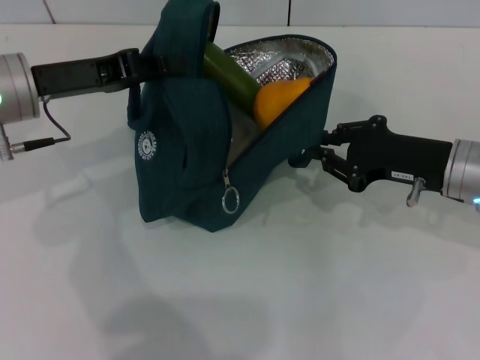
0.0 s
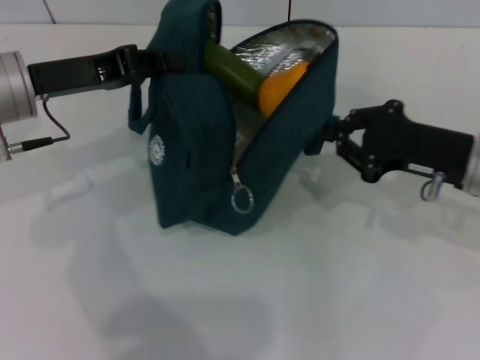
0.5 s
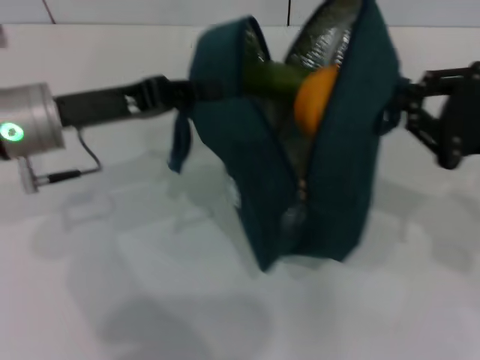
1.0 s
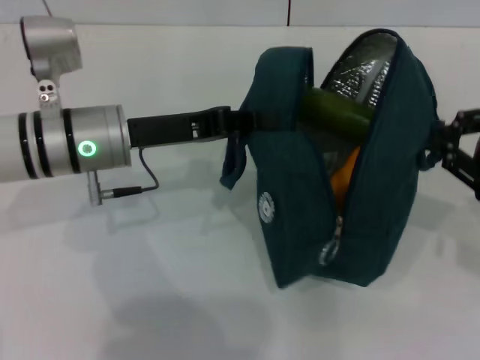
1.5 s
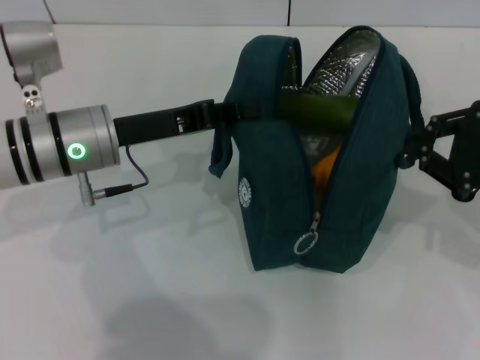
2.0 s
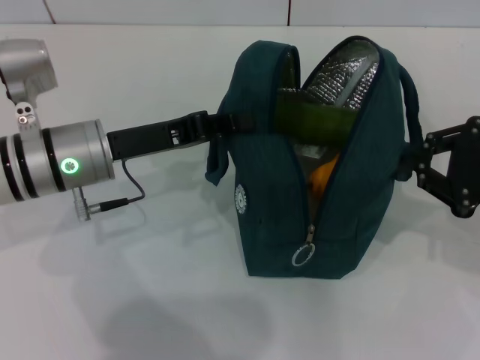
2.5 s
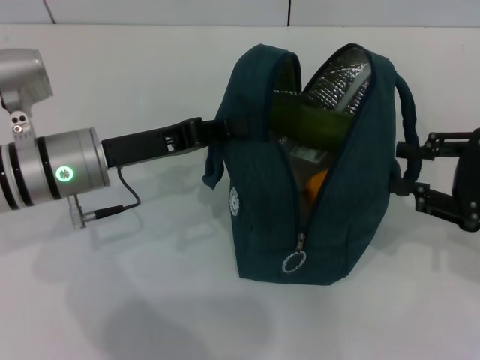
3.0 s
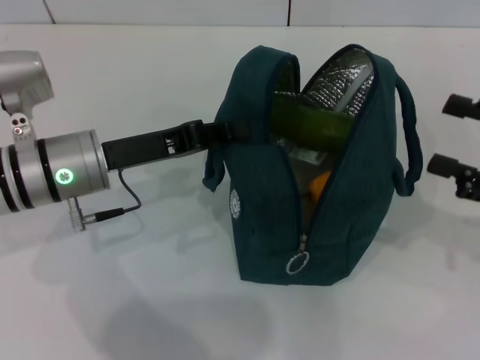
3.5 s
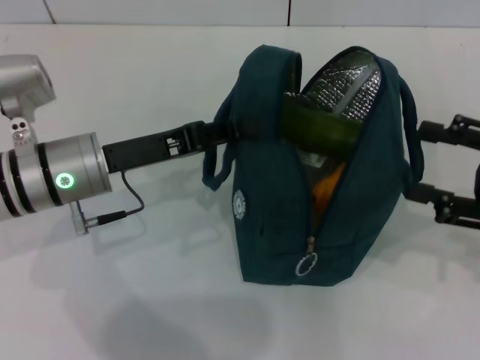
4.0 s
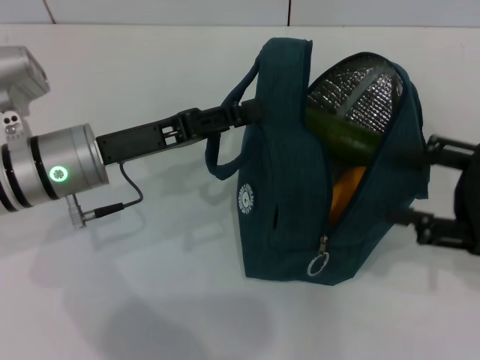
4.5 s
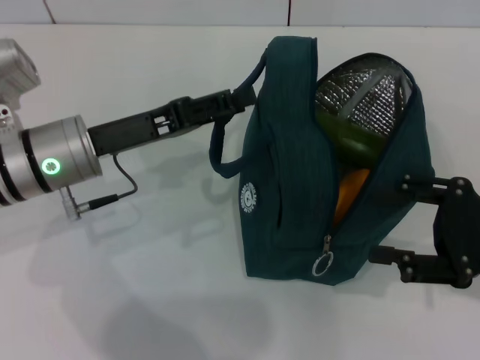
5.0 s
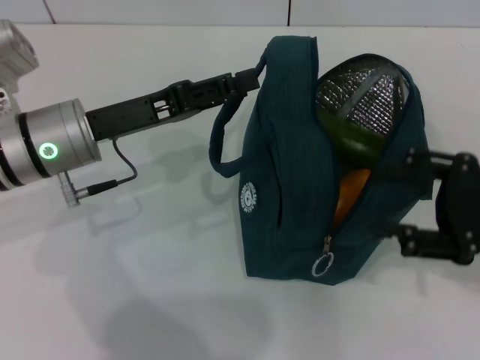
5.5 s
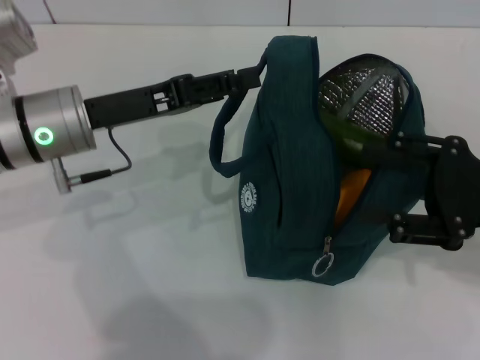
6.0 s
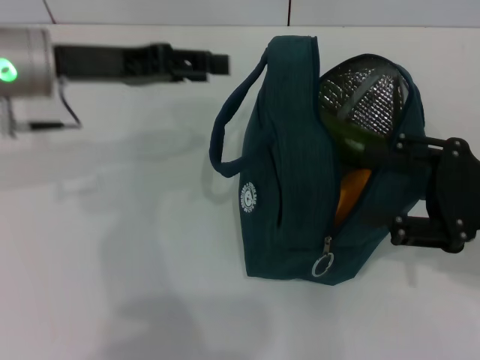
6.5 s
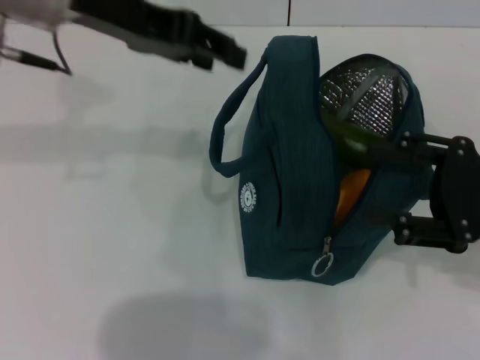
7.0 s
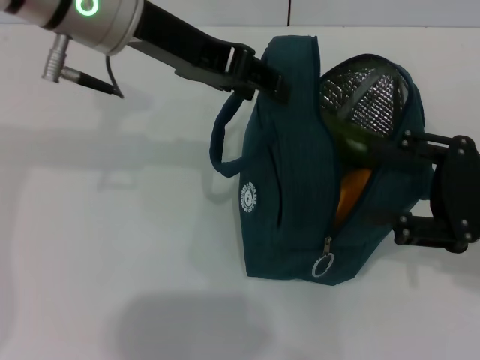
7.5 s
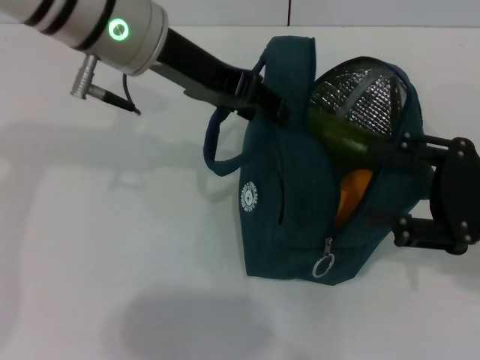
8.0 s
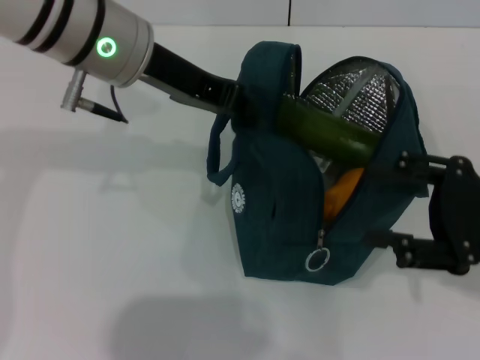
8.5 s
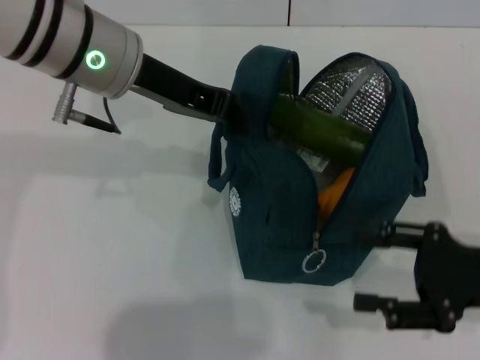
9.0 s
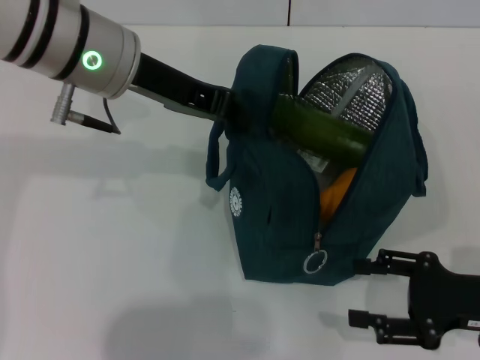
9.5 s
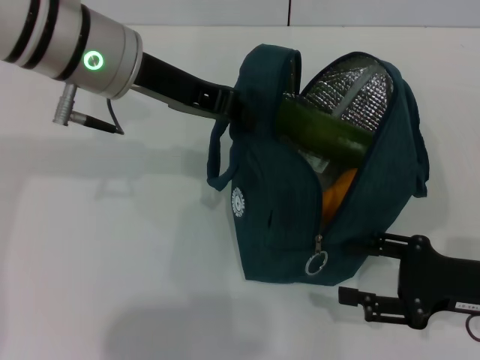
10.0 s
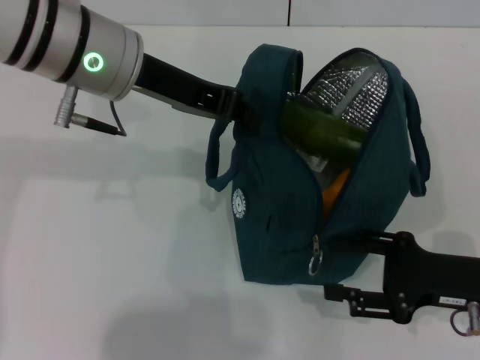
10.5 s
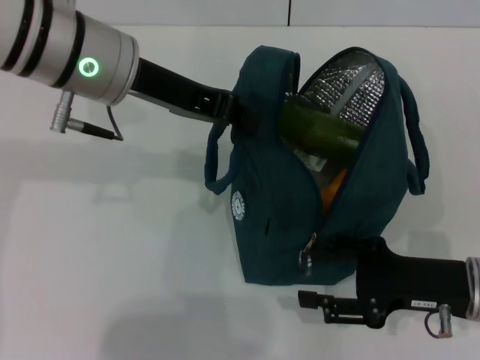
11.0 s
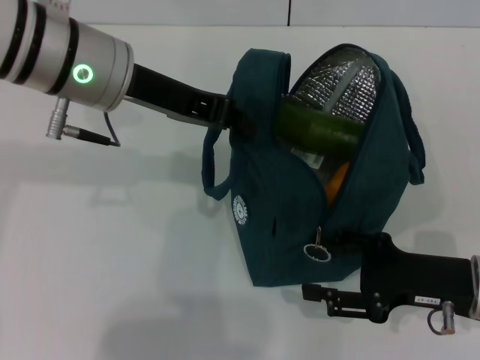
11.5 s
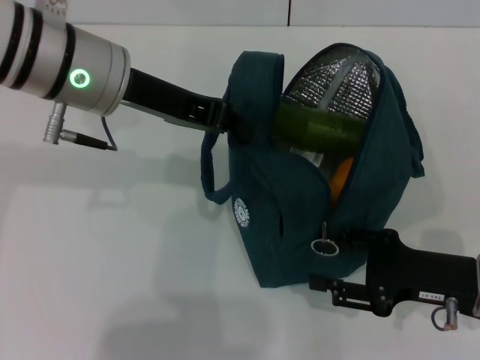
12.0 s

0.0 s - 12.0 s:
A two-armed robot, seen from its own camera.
Step, 0.0 s - 2.5 s: Hold the lunch bag with your right hand.
0.0 s - 2.0 s: The left gripper heads to the right, covering approximately 5 cm. Meanwhile the right gripper shifts about 10 cm to the right and upward.
2.0 s - 4.0 s: The right gripper opens up.
4.0 s - 6.0 s: The left gripper opens.
6.0 s - 8.0 s: The left gripper heads upward and to the right, covering about 15 cm.
8.0 s - 10.0 s: The right gripper is displaced downward by some 10 cm; the left gripper closes up.
10.0 s - 12.0 s: The grippers move only a little.

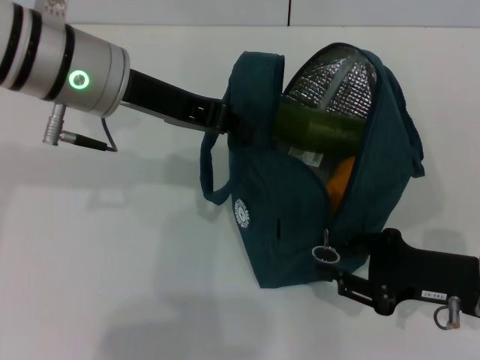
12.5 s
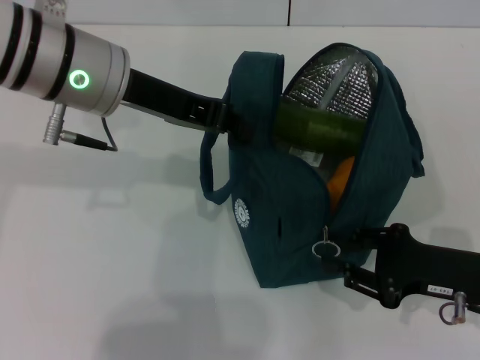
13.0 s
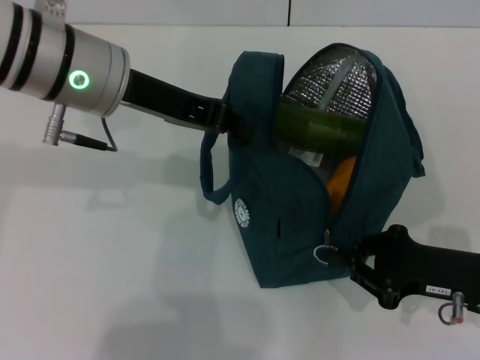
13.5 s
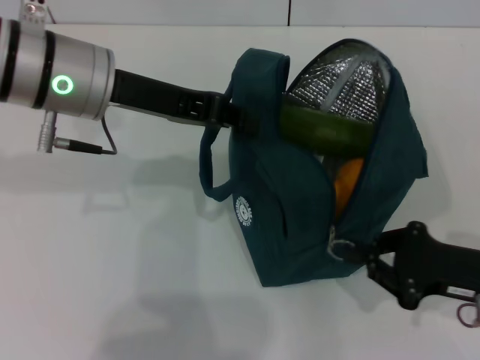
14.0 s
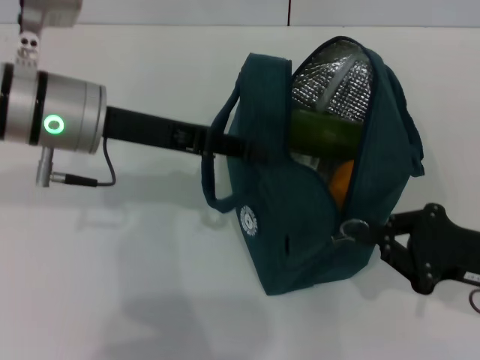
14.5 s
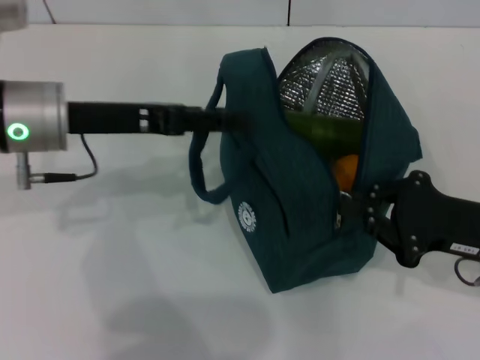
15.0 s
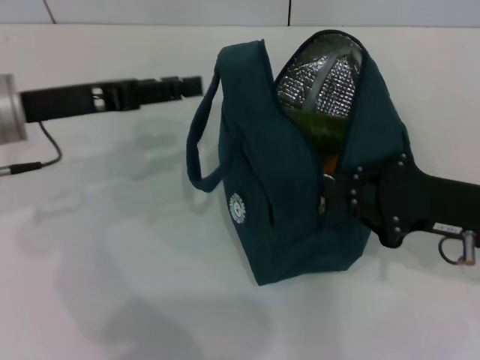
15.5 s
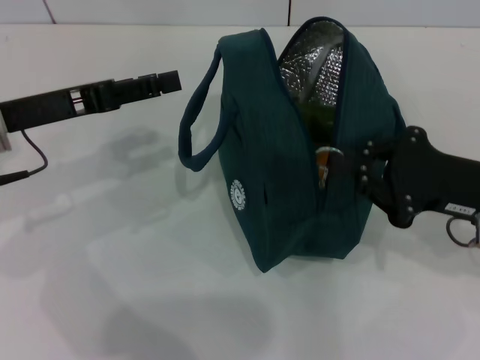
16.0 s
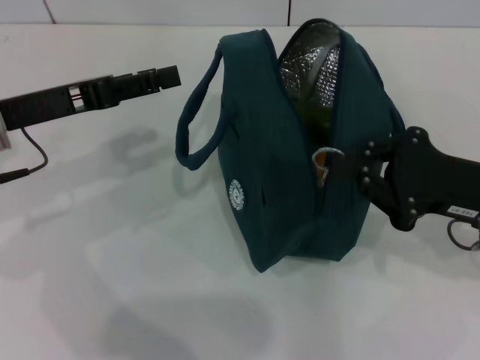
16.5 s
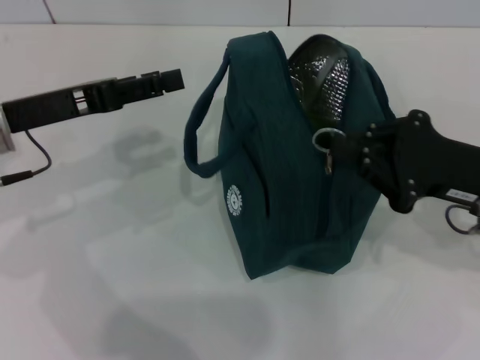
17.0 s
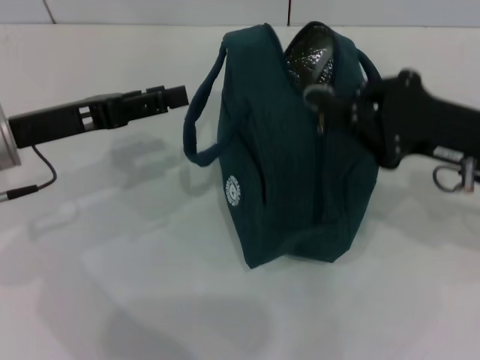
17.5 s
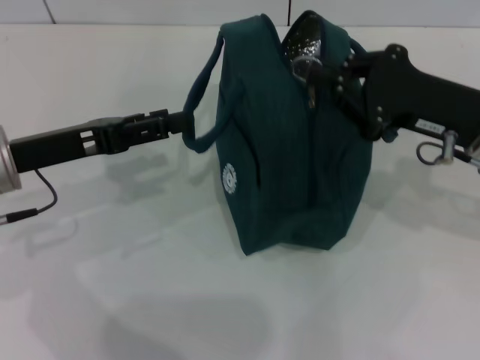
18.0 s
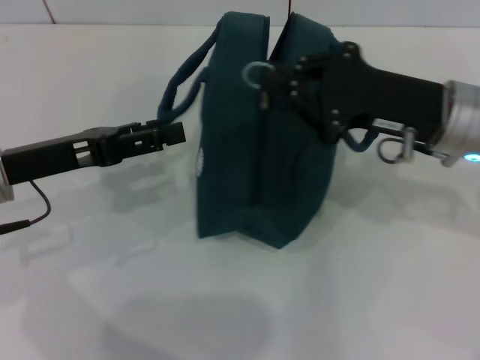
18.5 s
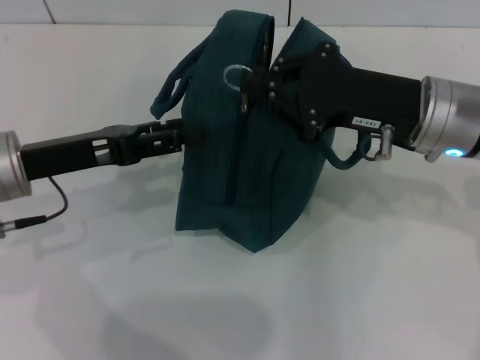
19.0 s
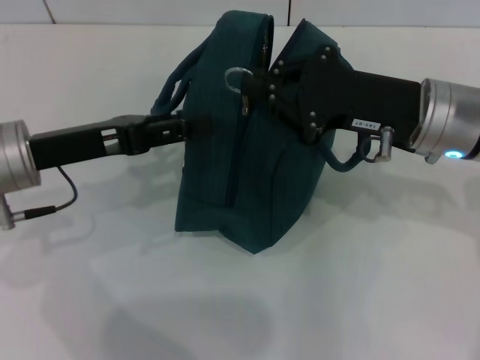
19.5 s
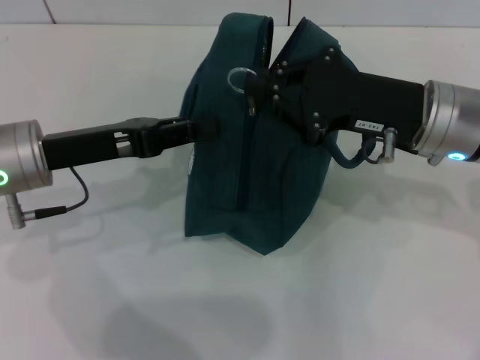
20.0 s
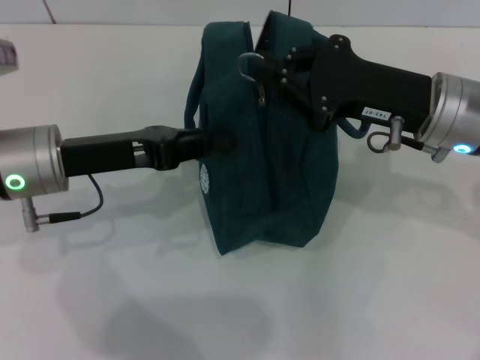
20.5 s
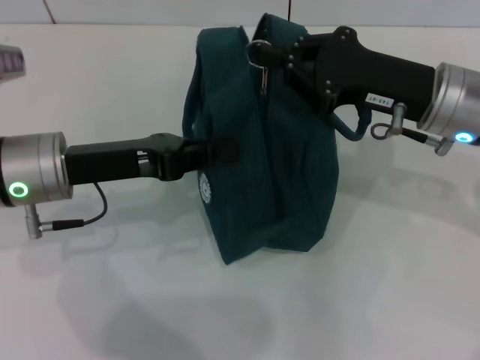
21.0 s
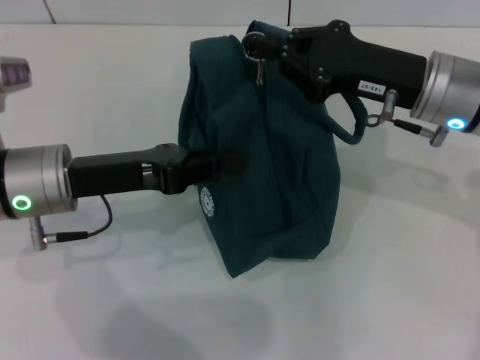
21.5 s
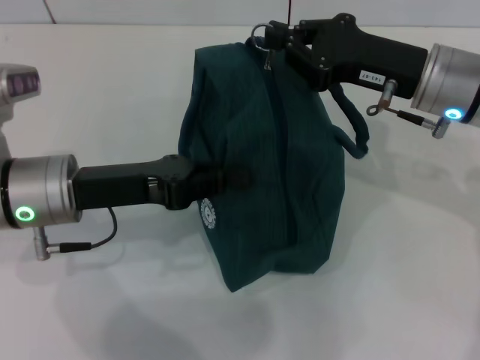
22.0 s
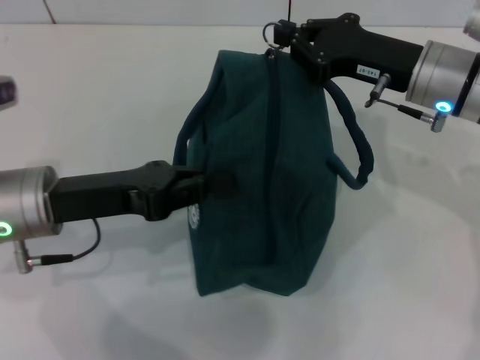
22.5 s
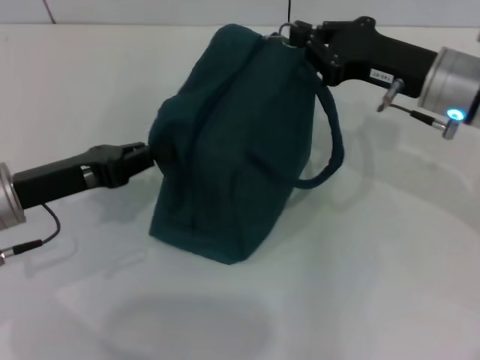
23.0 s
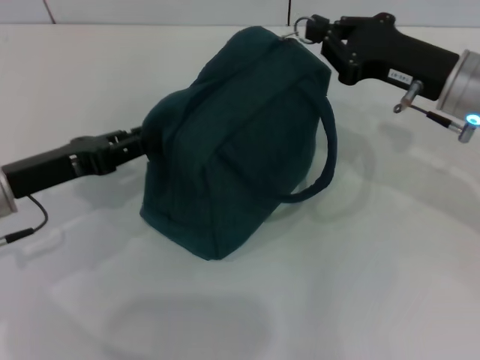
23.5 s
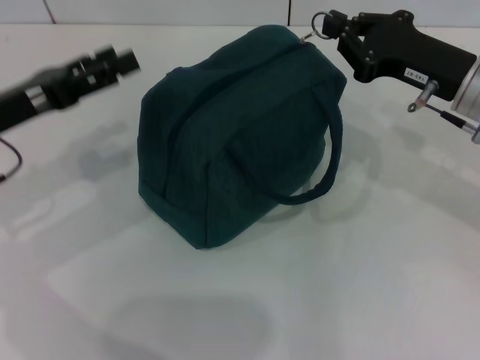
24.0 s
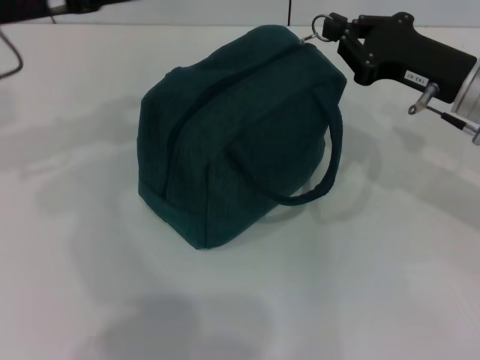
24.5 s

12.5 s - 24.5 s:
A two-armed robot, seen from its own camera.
Step, 12.5 s - 15.0 s: Hold the lunch bag with your left hand.
12.5 s - 14.5 s: The right gripper closes up.
14.5 s - 16.5 s: The right gripper is displaced upward by roughly 5 cm, while the left gripper travels to the left by roughly 10 cm, and opens its fingers.
16.5 s - 18.5 s: The right gripper shifts roughly 10 cm to the left and forward.
18.5 s - 20.5 s: The left gripper closes.
22.5 s - 24.5 s: The left gripper moves upward and forward, some 15 cm, and opens its fingers.

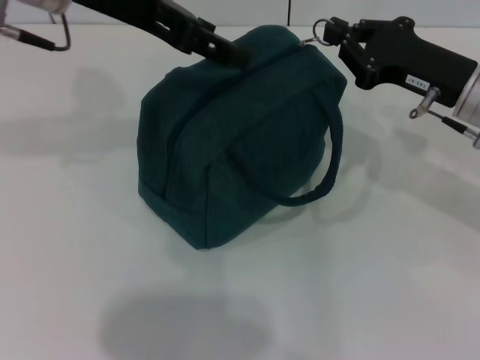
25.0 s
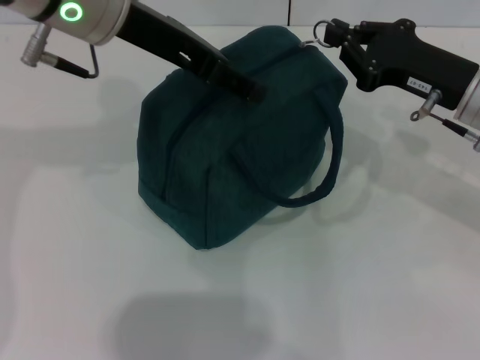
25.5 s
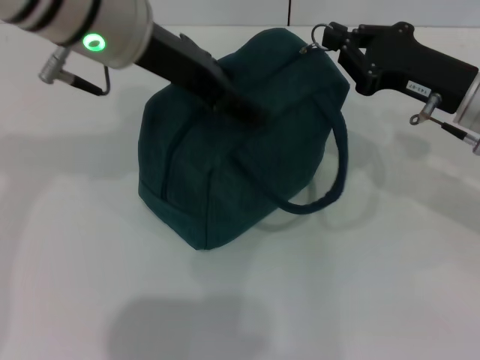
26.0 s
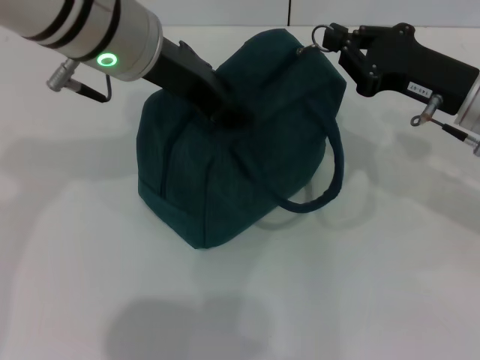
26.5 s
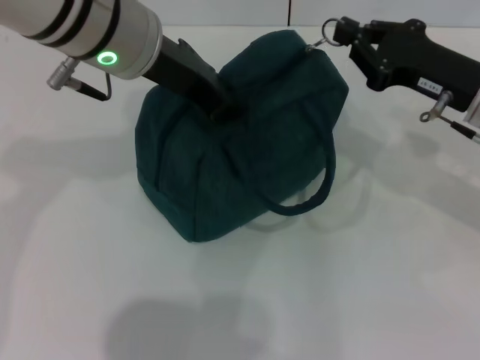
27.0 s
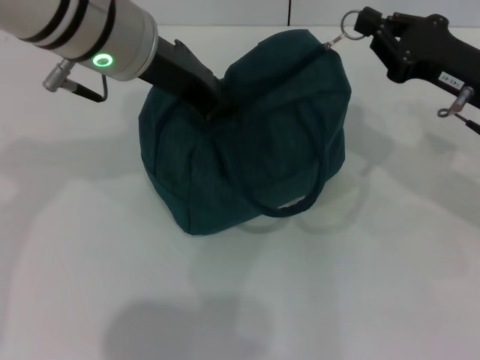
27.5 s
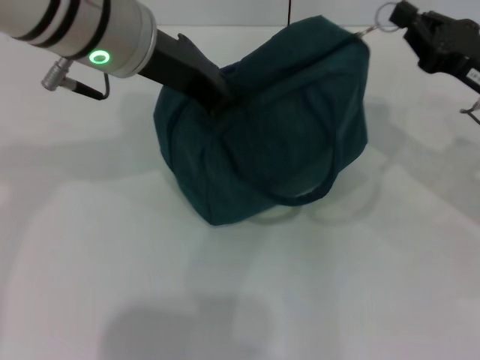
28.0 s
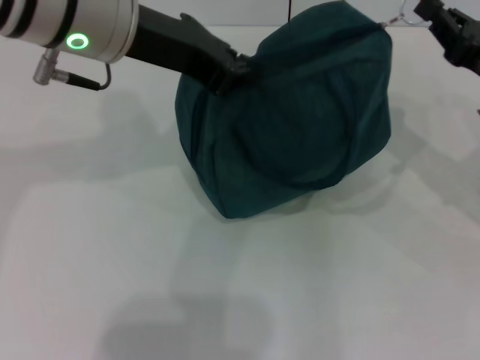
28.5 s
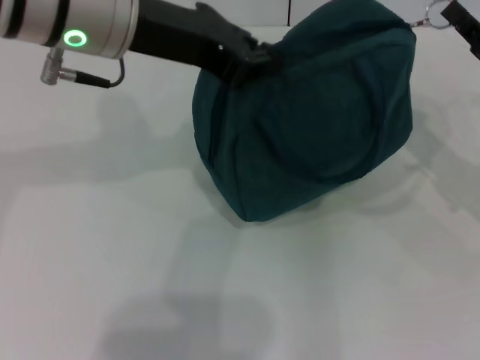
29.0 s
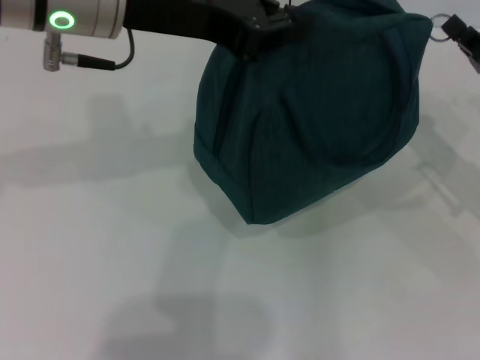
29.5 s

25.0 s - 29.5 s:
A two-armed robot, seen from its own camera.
25.0 s - 27.0 s: The left gripper is displaced to the right by roughly 5 cm, and closes.
27.0 s - 29.5 s: The right gripper moves to the right, approximately 5 cm.
